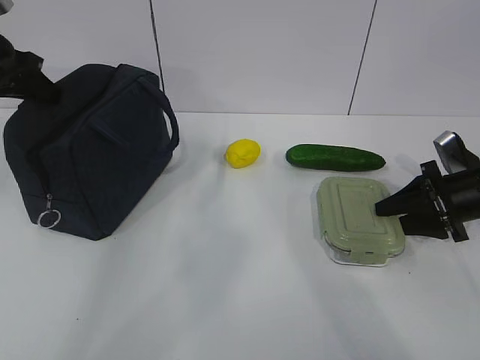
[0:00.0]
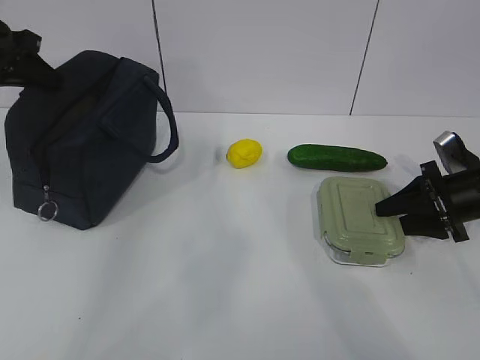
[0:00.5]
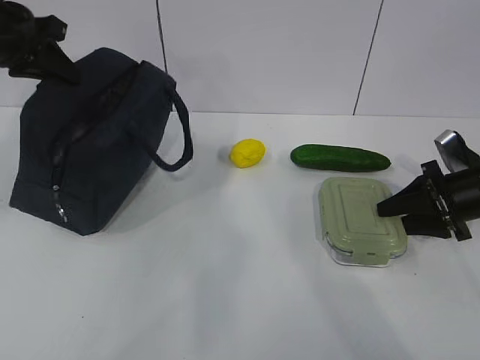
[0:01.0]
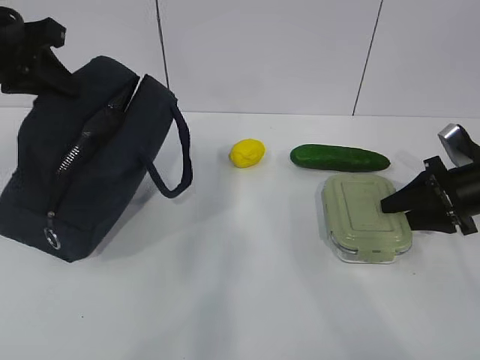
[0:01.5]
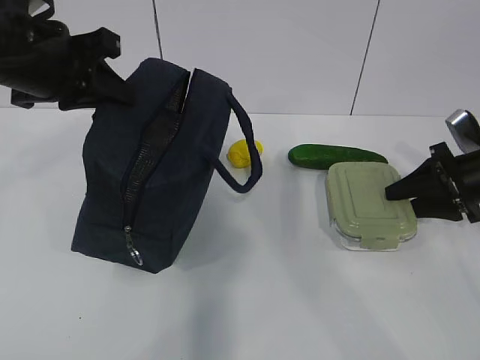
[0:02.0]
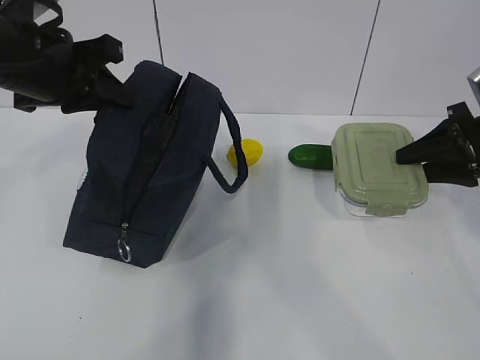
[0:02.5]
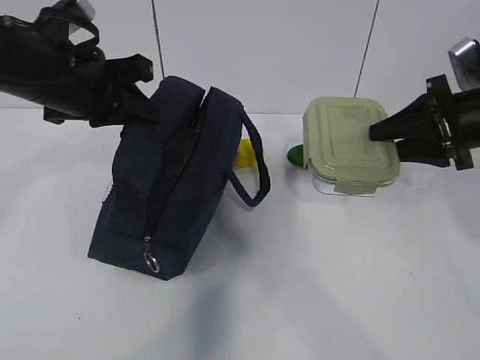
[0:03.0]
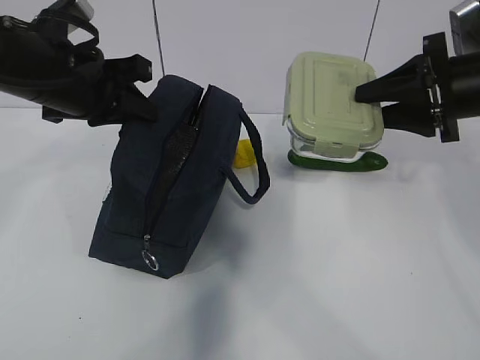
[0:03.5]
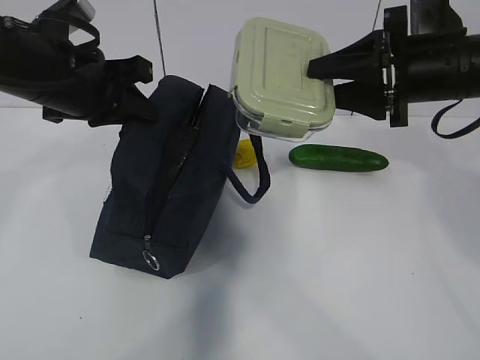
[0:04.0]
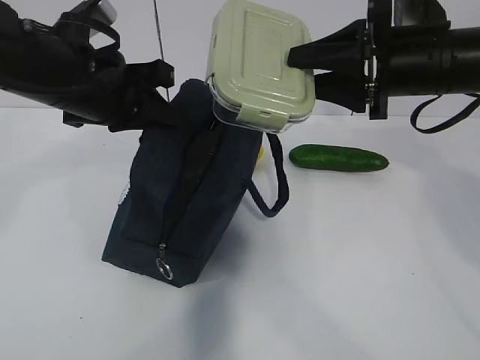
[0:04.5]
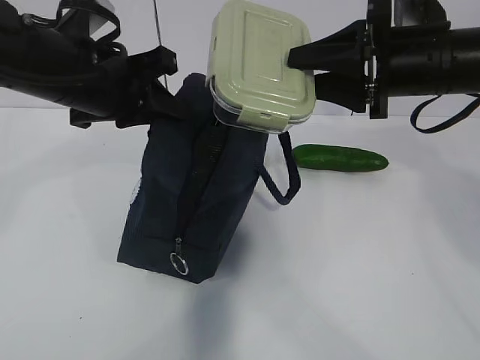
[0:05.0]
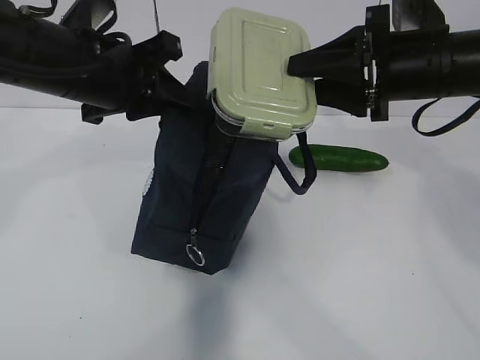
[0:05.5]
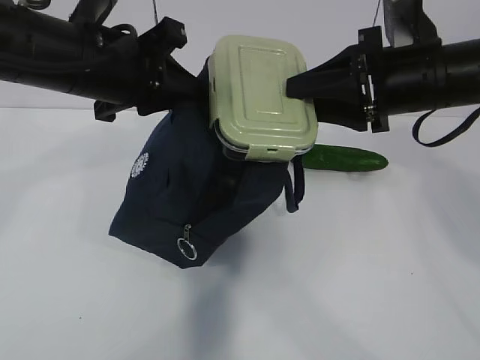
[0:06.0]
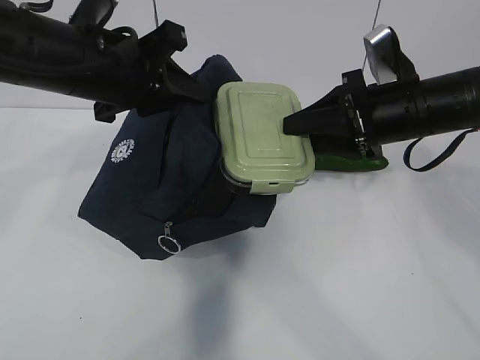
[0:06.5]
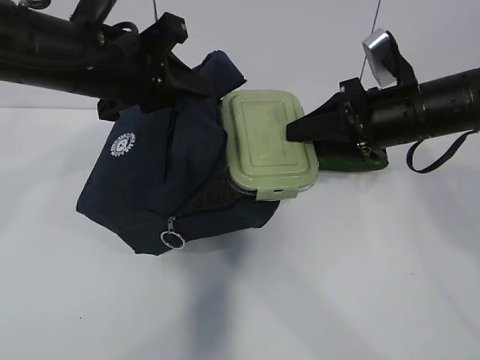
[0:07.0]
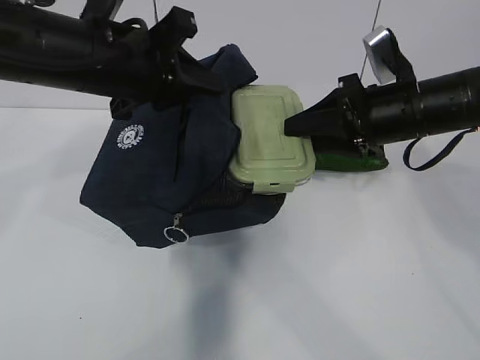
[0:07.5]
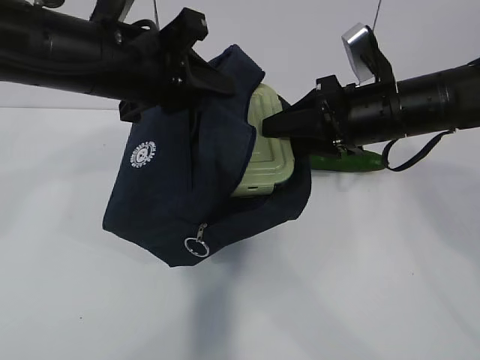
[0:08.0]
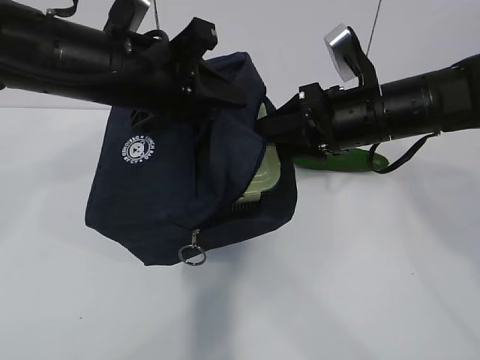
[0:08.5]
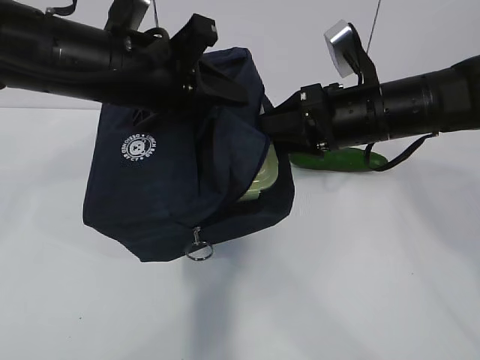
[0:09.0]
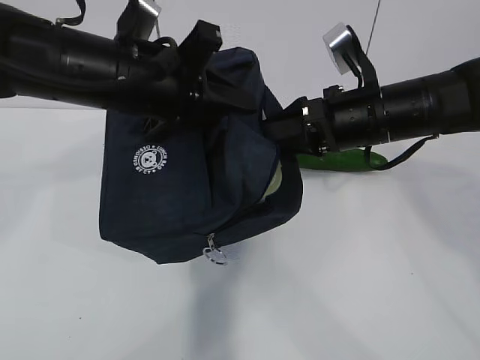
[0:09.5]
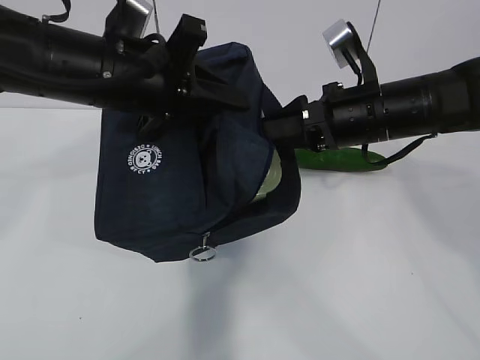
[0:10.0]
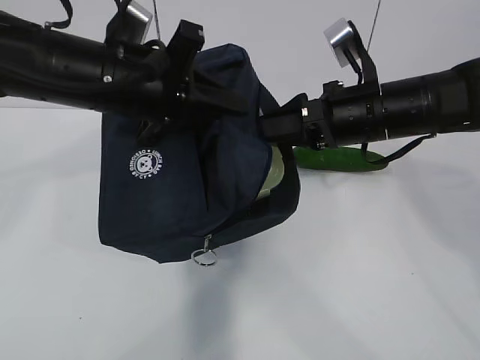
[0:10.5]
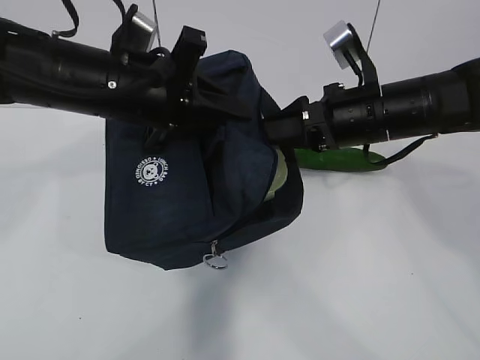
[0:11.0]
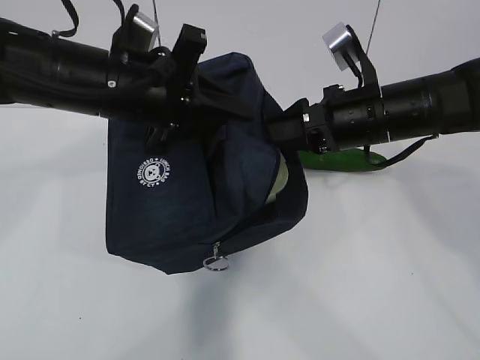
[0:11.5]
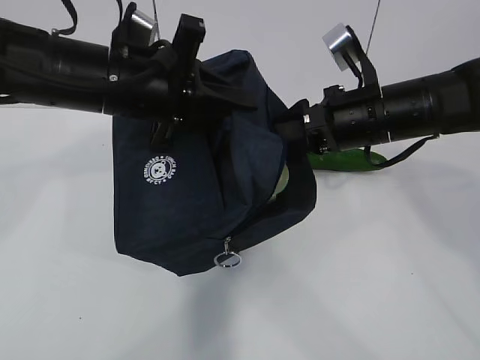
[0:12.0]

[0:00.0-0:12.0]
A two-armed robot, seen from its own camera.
Step, 0:01.5 to 0:08.0: Place it into the bag with your right hand.
0:00.0 to 0:02.0: The left gripper heads to the right and backward, covering roughly 15 cm.
0:02.0 to 0:04.0: The right gripper is displaced upward and to the left by some 20 cm.
0:10.0 to 0:12.0: The grippers make only small movements.

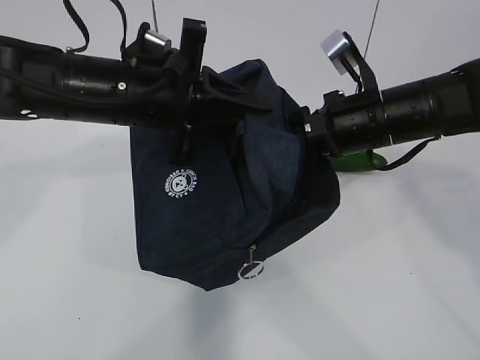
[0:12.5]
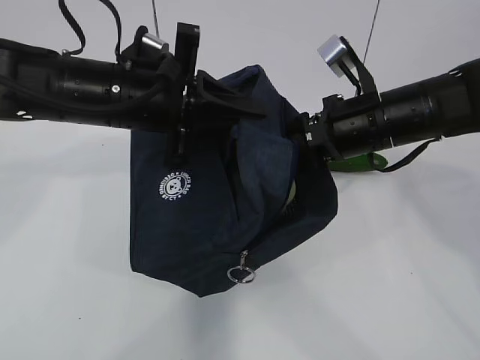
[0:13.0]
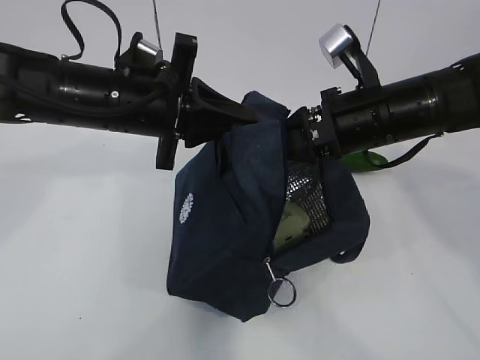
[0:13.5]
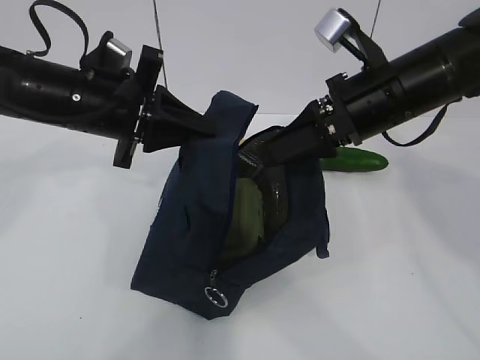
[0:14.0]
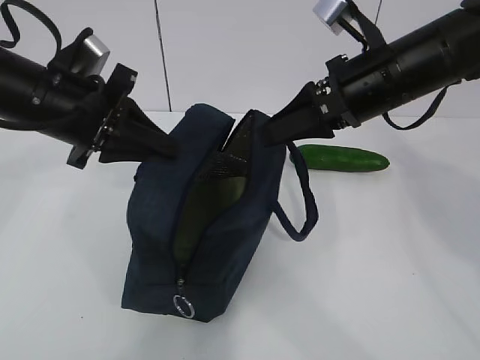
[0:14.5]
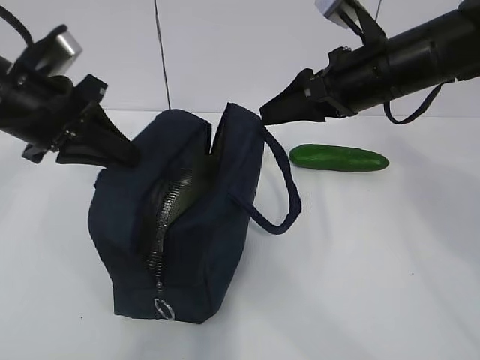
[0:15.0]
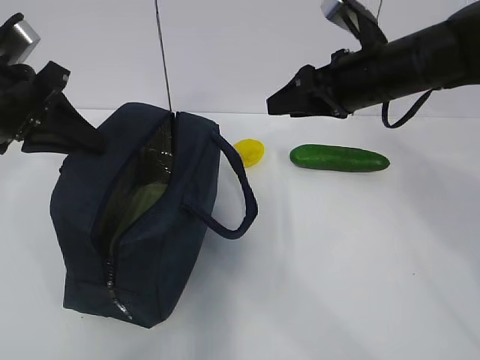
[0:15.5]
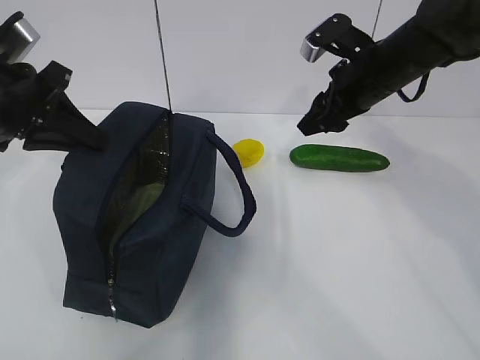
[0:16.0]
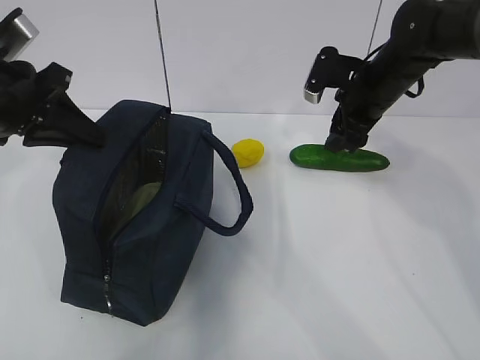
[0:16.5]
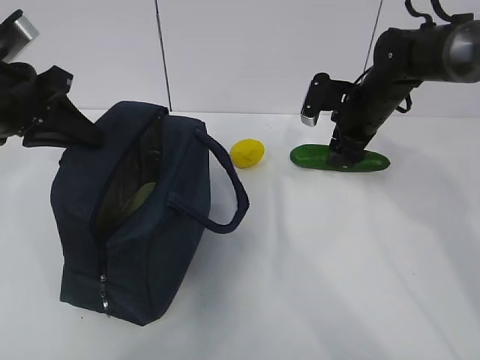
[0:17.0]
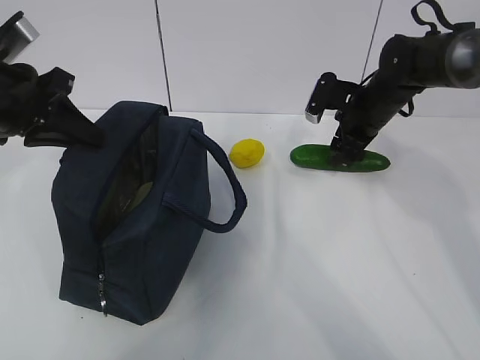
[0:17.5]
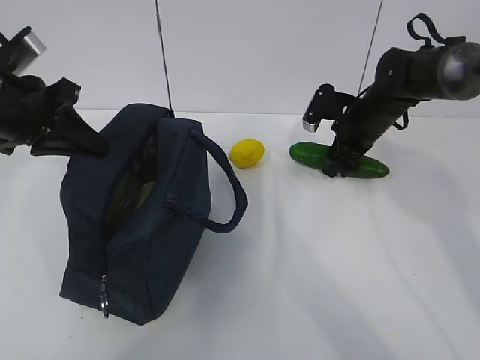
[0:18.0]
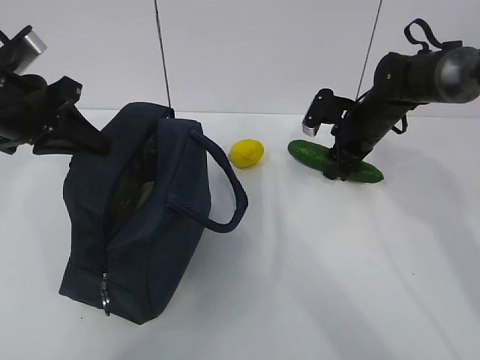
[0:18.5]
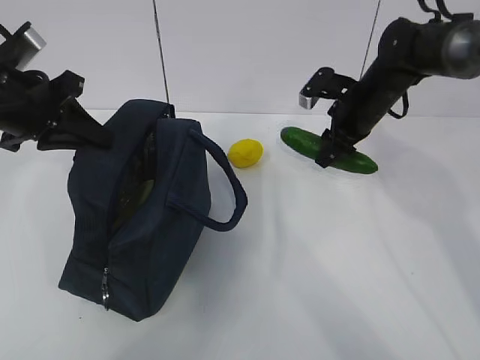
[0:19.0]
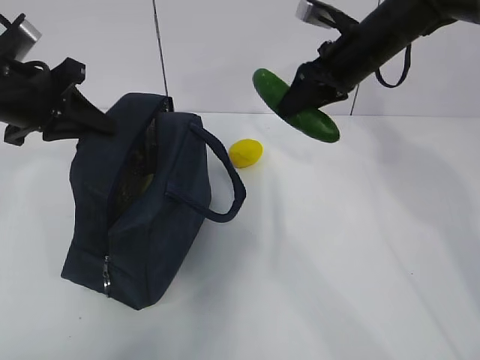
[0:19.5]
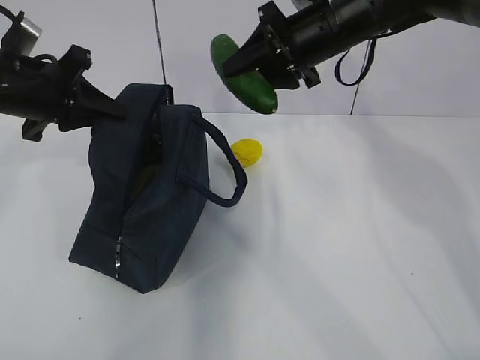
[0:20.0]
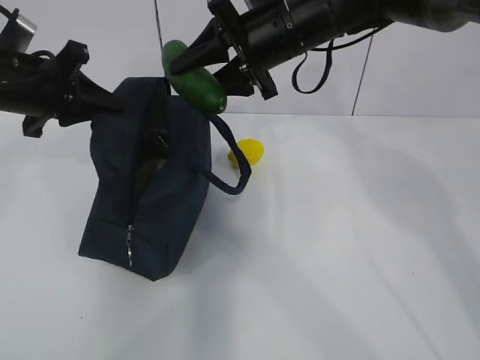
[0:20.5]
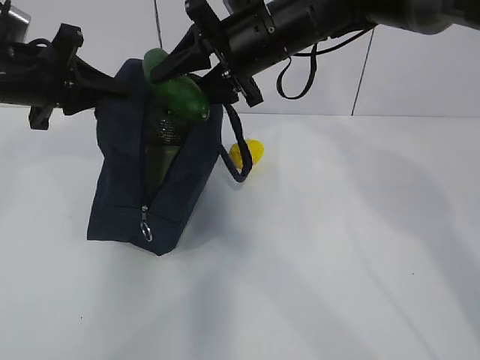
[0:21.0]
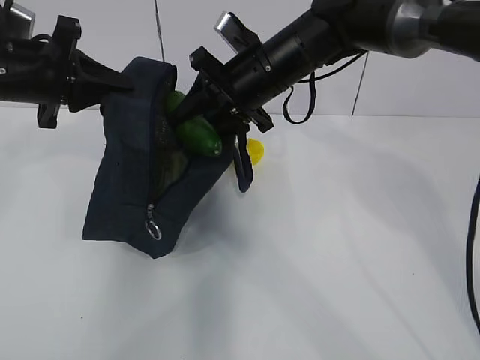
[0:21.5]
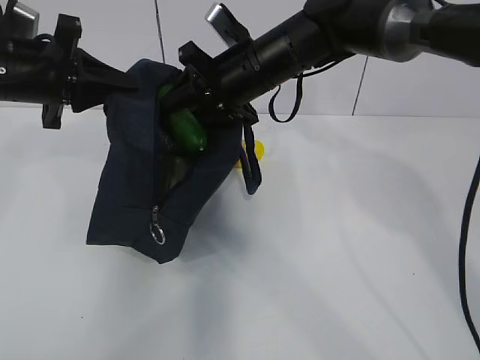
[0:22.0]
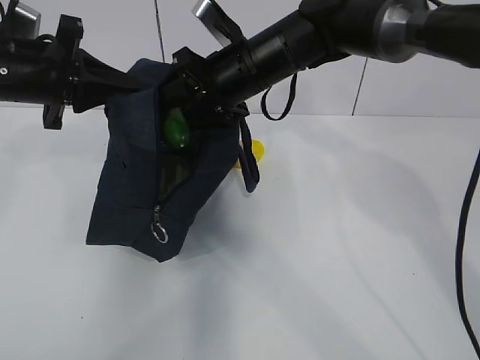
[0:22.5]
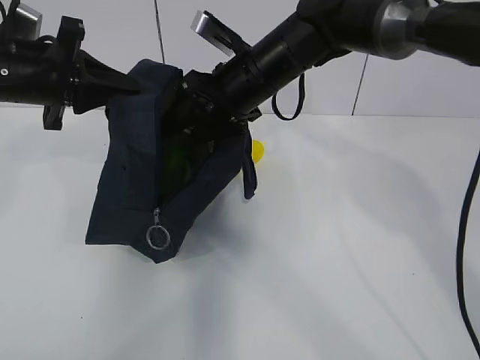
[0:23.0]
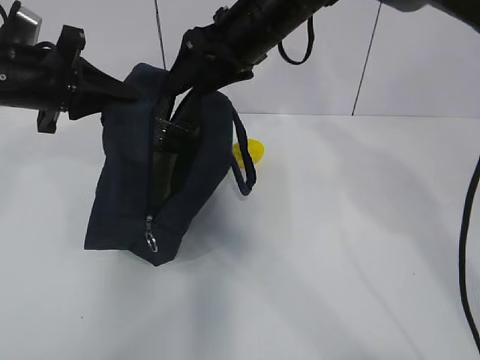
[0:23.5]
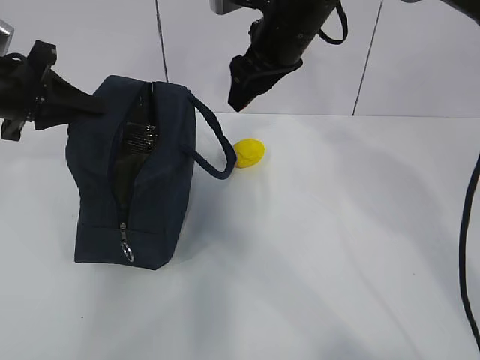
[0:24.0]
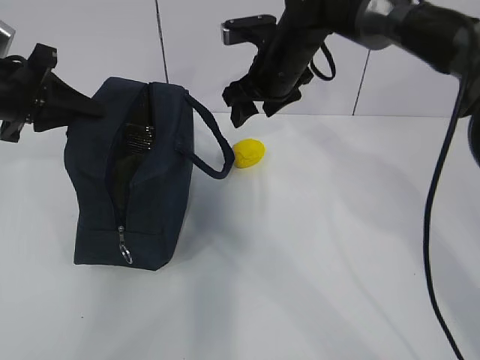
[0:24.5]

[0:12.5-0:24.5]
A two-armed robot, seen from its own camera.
Step, 0:12.5 to 0:16.0: Place it into the bag with your right hand.
0:12.5 to 0:14.5: The left gripper is displaced to the left by approximately 10 cm.
0:14.5 to 0:16.5: The left gripper heads to the left, covering about 5 cm, while the right gripper heads forward and downward, covering roughly 15 cm.
0:16.5 to 0:18.5: The right gripper shifts approximately 10 cm downward.
0:18.5 to 0:20.5: The right gripper is displaced upward, to the left and backward by roughly 20 cm.
0:20.5 to 0:22.5: The right gripper changes place by about 5 cm.
0:22.5 to 0:24.5: The right gripper moves forward, approximately 5 cm.

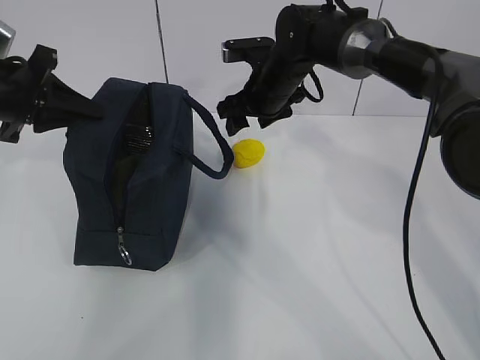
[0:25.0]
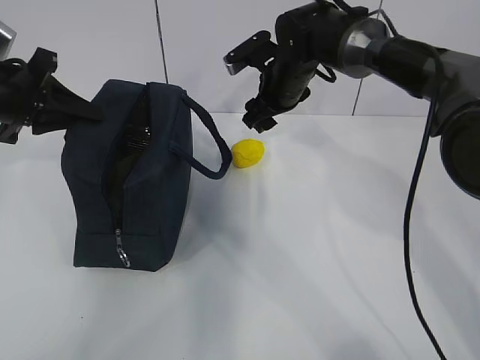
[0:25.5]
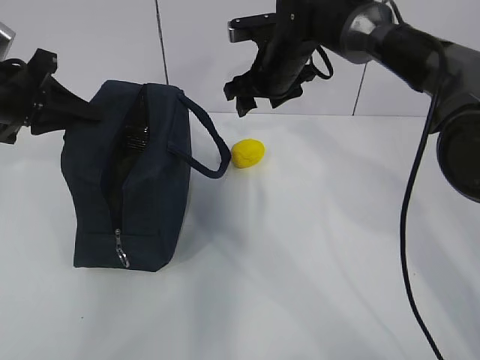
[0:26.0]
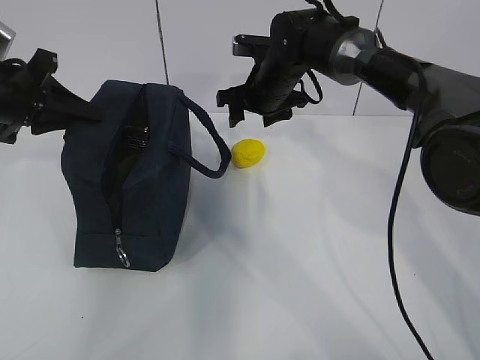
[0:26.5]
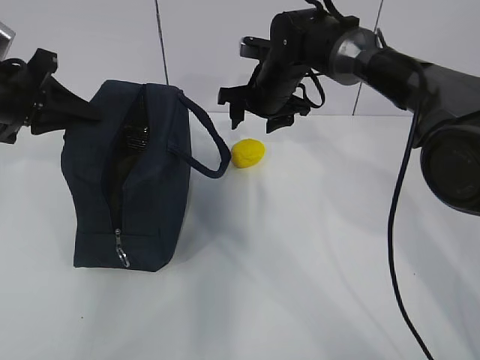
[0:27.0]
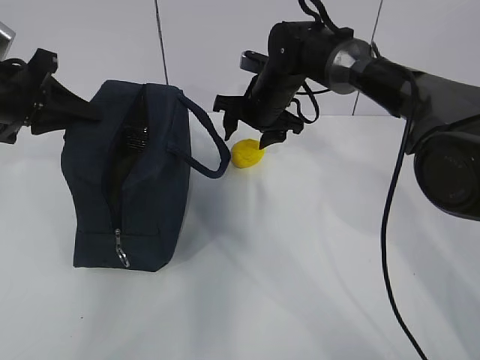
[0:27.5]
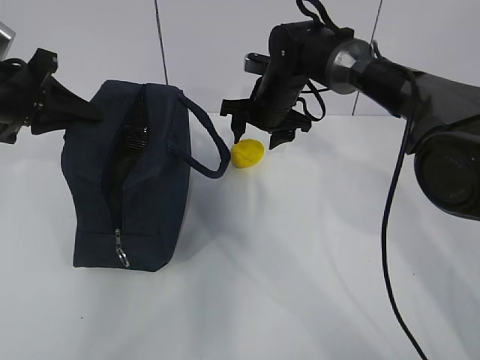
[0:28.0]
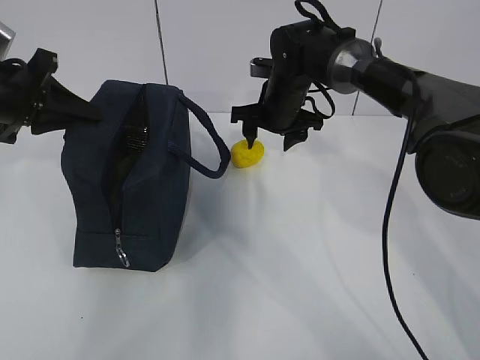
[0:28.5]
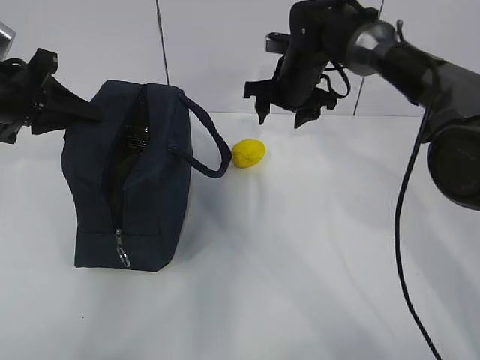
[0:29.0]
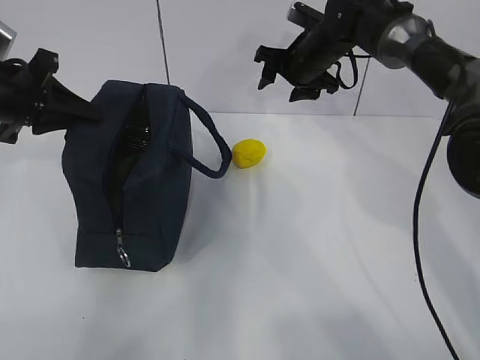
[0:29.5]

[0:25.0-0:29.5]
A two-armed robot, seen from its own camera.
0:27.0 to 0:29.5: The right gripper goes some 5 cm to the right.
